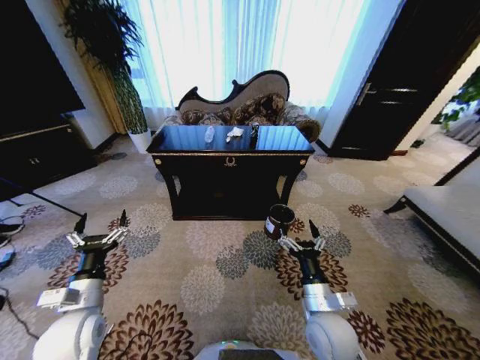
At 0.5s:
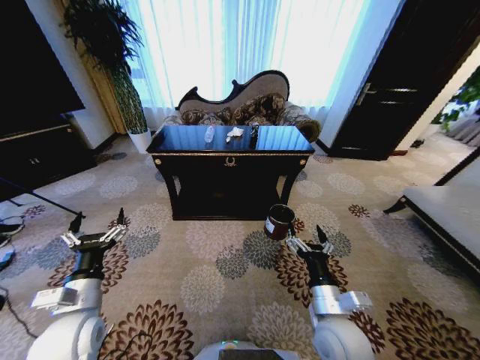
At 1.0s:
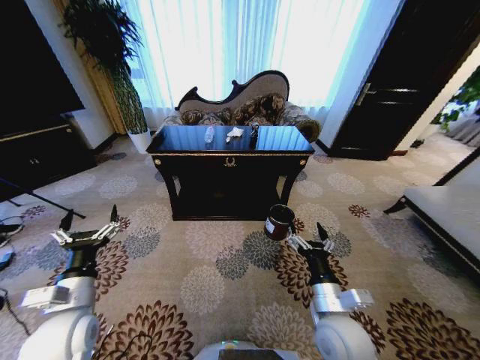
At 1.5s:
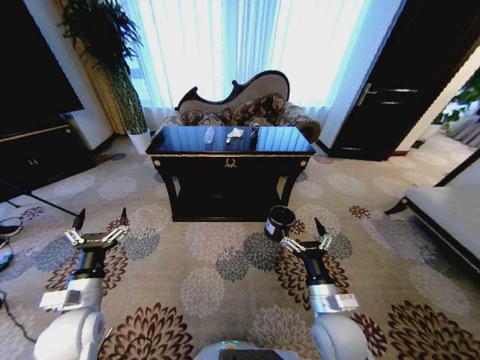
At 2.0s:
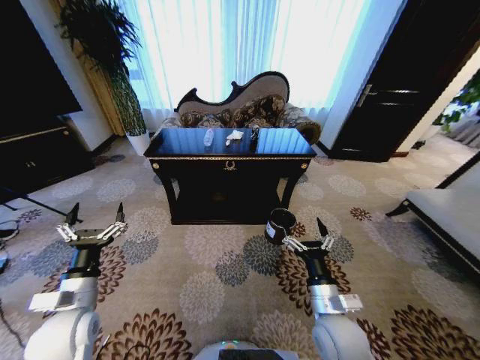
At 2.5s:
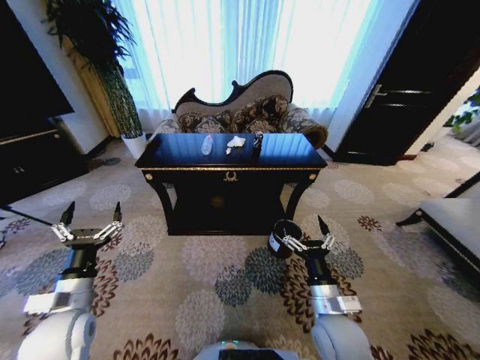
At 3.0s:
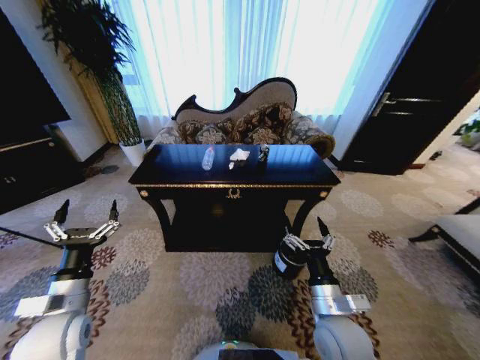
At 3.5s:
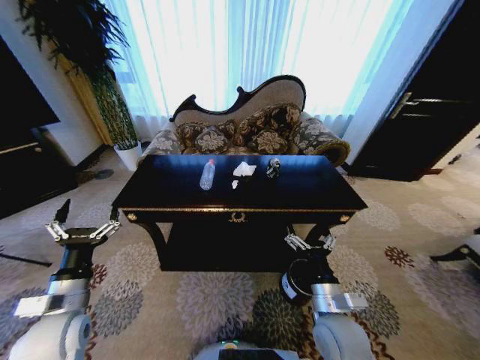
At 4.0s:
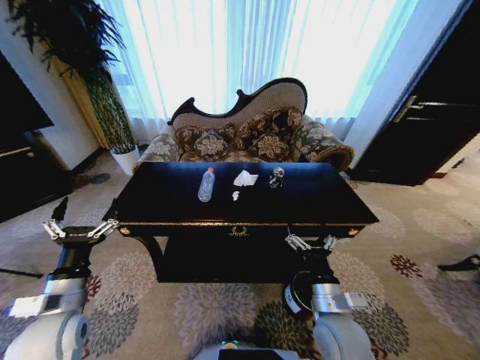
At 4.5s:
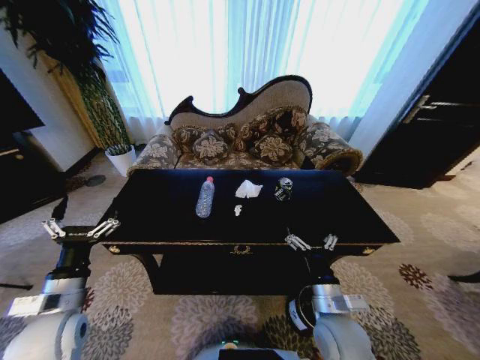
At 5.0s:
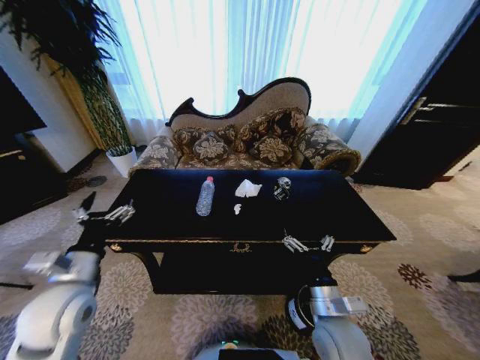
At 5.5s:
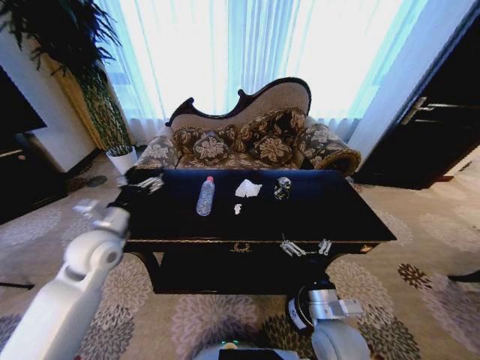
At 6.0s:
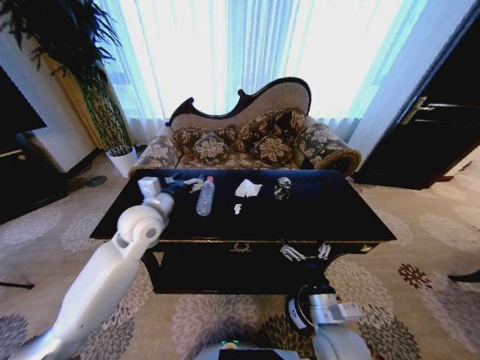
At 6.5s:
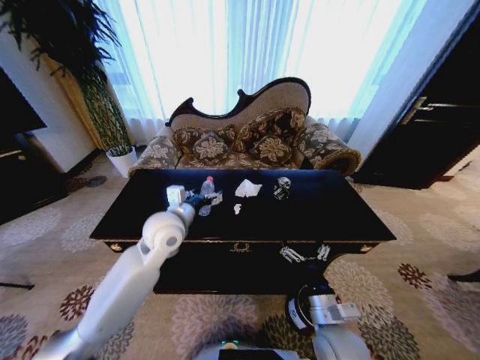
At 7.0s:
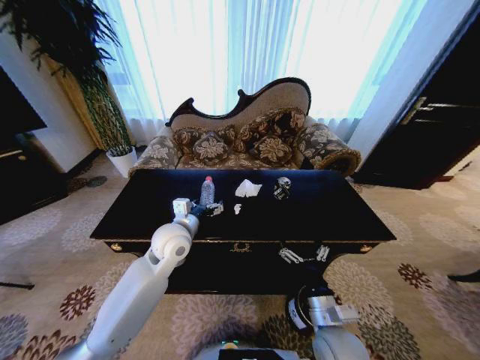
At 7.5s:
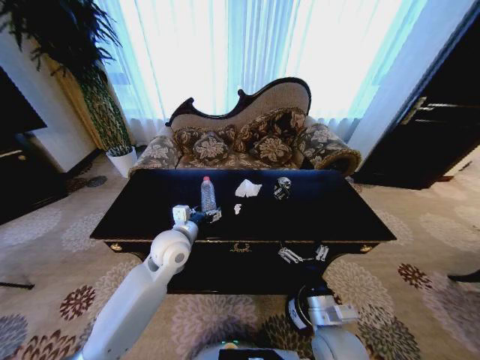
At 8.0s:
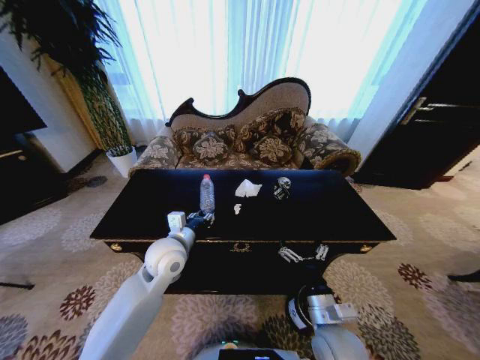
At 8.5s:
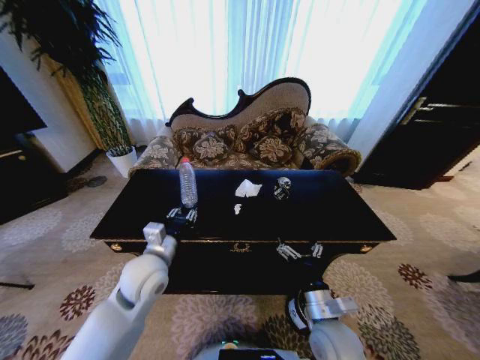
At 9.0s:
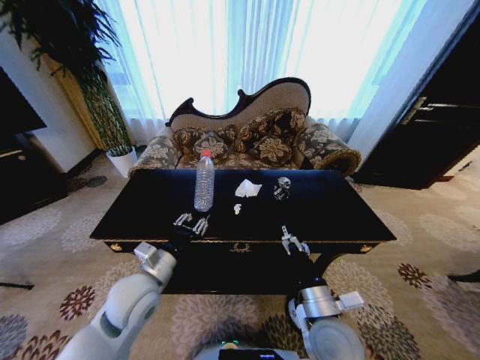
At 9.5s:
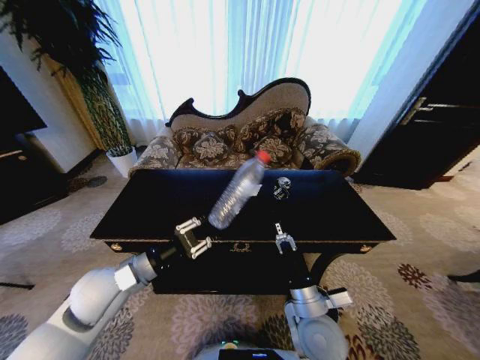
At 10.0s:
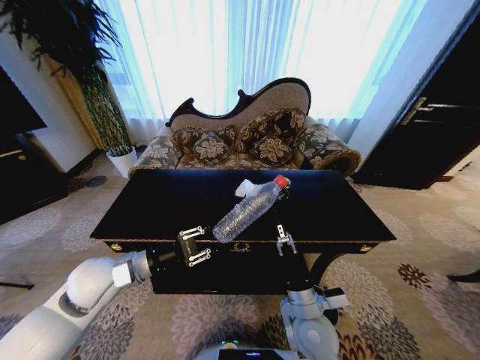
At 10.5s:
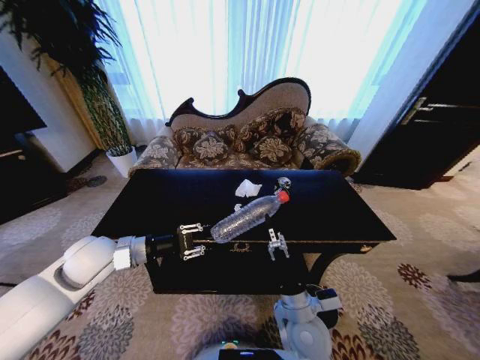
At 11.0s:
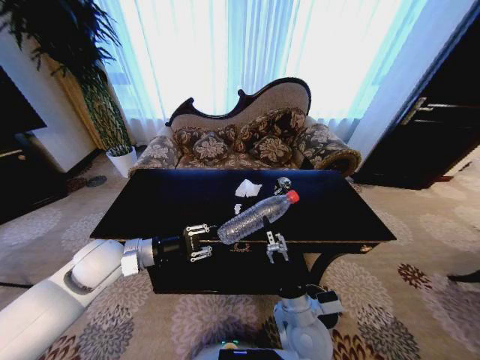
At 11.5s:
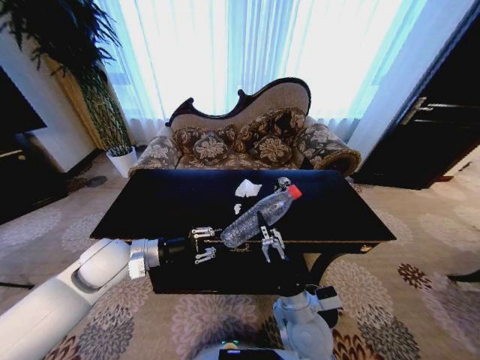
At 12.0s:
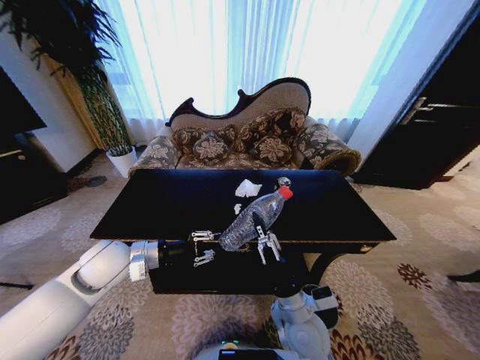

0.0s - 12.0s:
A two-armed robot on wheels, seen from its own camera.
Task of the whole recording: Move to the front of the table and place the trash on the table into the trash bin.
4.0s - 6.0s: The left gripper goes approximately 25 cm forward, to the right and upward.
6.0s - 8.0s: The left gripper heads downward and to the right, covering roughly 10 cm, and closes its fingers.
8.0s - 10.0s: The right gripper shifts by roughly 5 cm. The left gripper heads to the left and backward, covering roughly 15 cm.
10.0s - 12.0s: The right gripper closes.

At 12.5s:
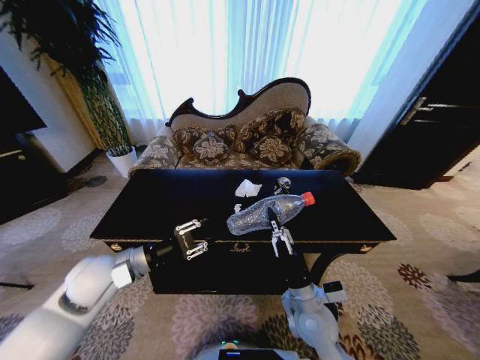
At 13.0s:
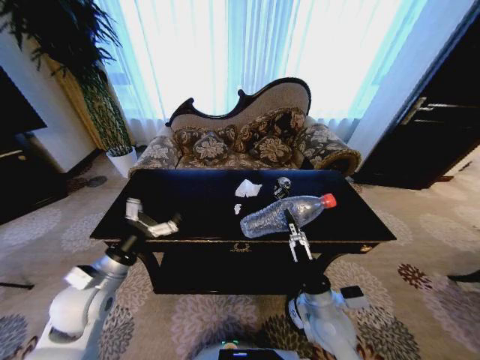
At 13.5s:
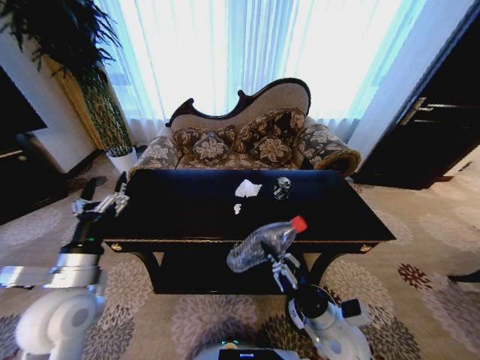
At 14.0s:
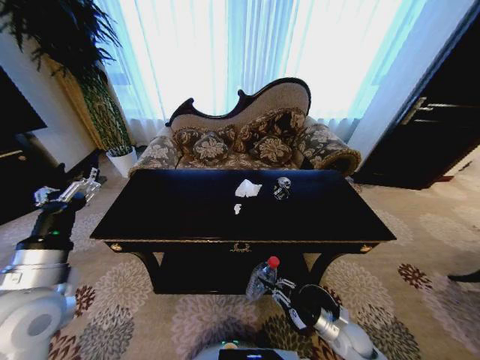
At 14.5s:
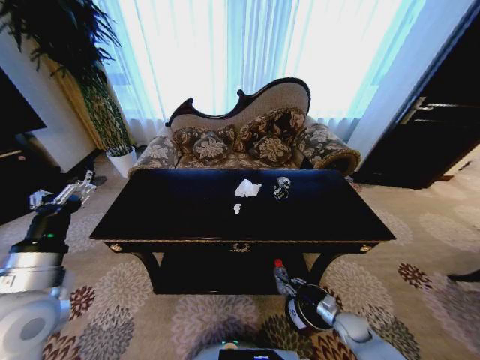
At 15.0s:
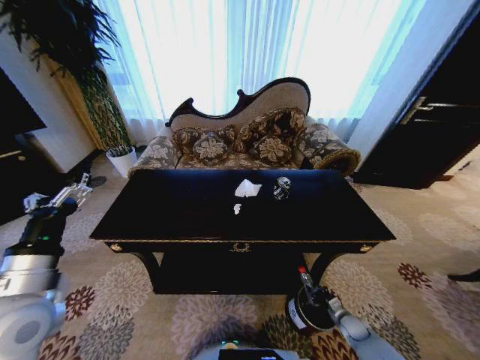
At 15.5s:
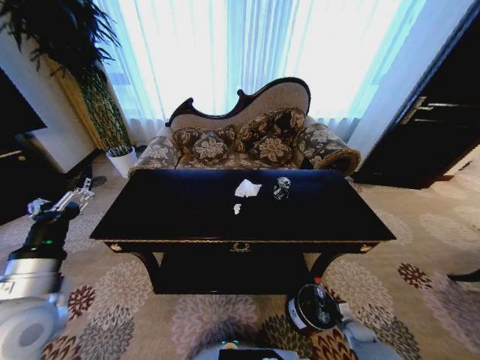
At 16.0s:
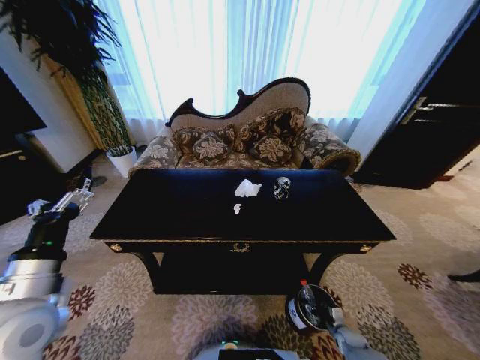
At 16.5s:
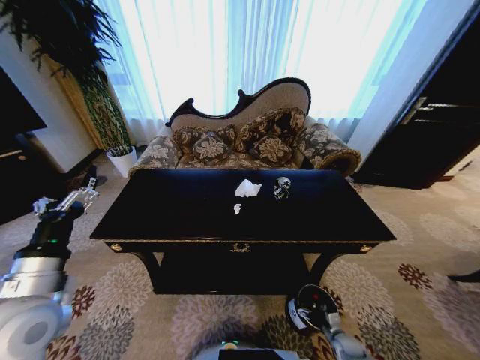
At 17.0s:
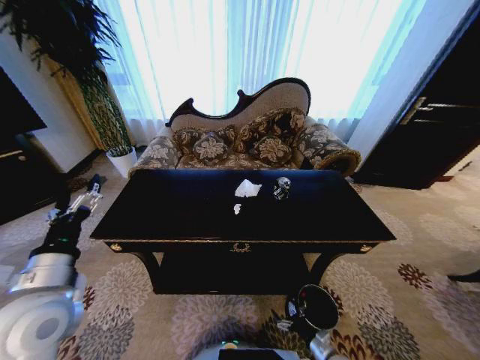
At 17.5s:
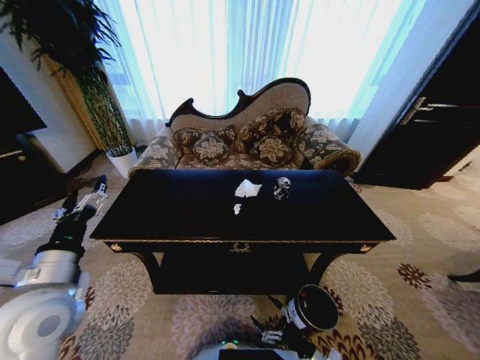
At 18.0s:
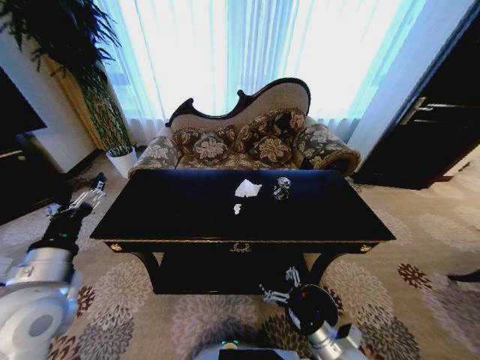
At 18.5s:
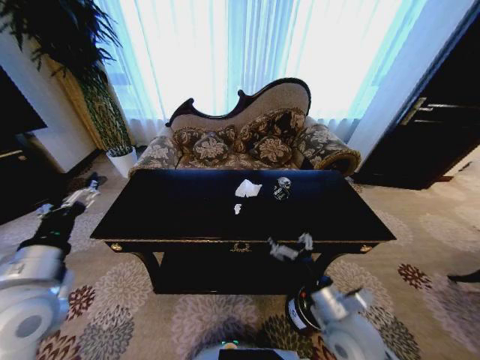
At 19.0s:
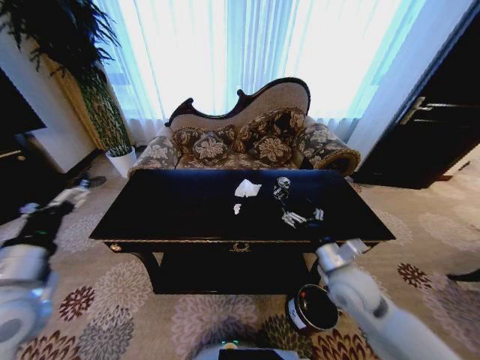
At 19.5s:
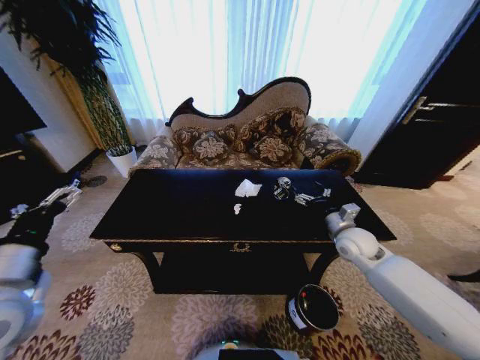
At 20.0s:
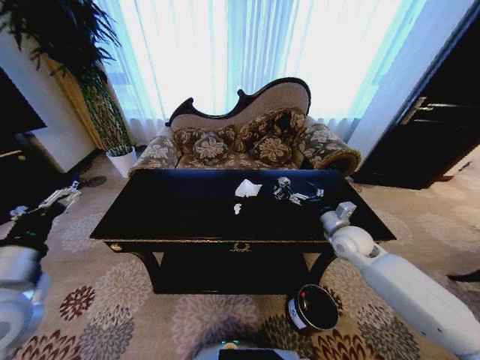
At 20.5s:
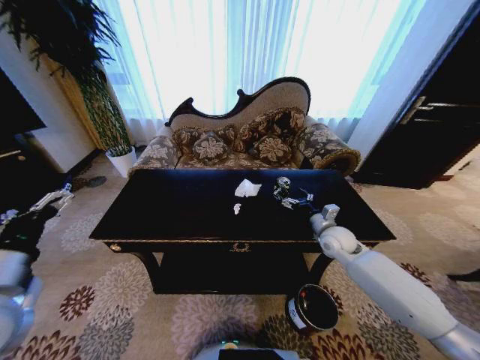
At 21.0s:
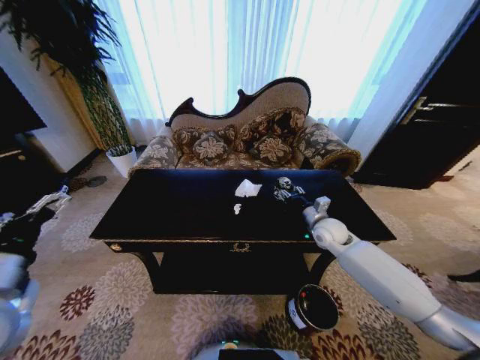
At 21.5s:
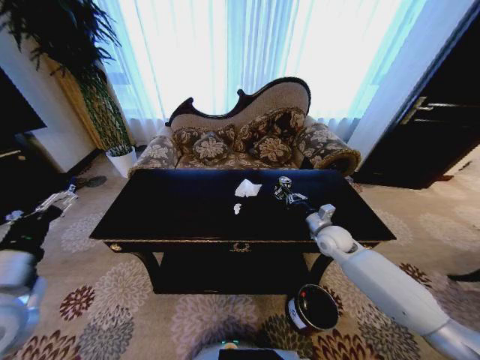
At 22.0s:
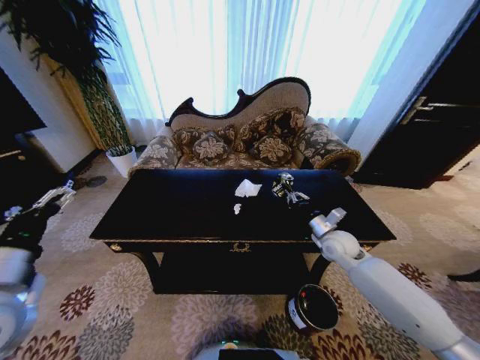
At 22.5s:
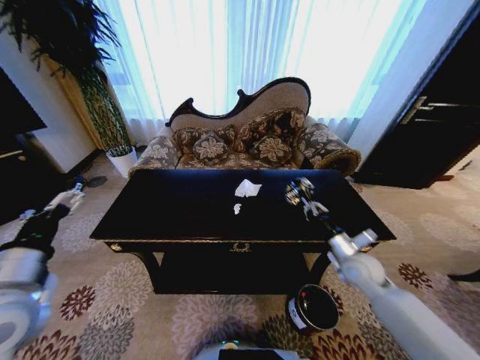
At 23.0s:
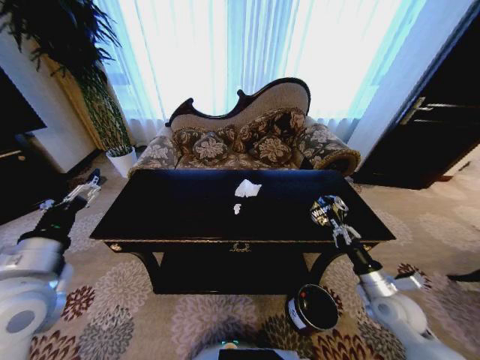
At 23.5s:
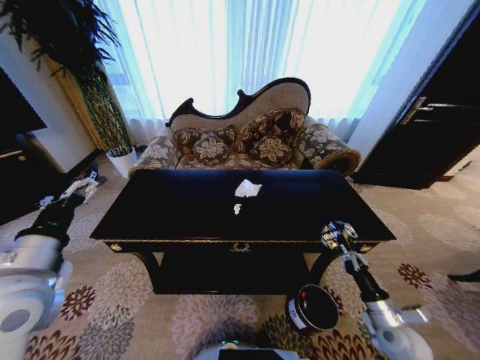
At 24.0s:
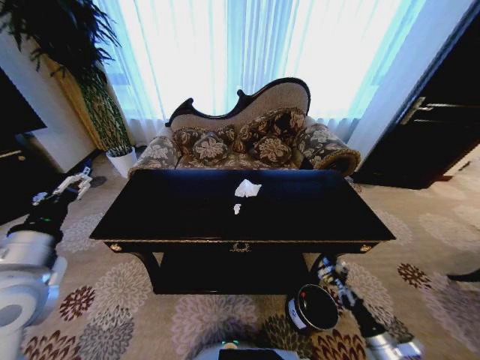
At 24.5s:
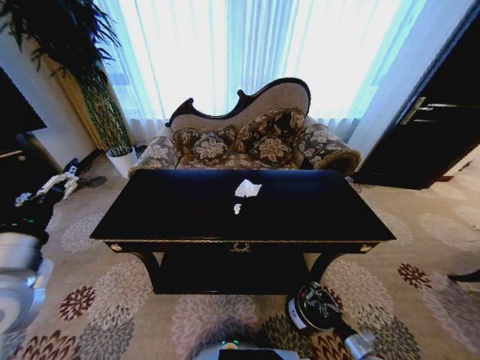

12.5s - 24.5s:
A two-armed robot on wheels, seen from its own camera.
Task of the whole recording: Move to the front of the table and place the trash on the table into the trash bin.
12.5s - 14.5s: The left gripper is displaced backward and upward by approximately 10 cm, and opens. The right gripper shifts about 30 cm to the right and downward.
14.5s - 16.5s: The right gripper moves downward, approximately 10 cm, and opens its fingers.
16.5s - 18.5s: The right gripper goes some 40 cm upward and to the left.
18.5s - 20.5s: The right gripper travels forward by approximately 25 cm.
20.5s - 22.5s: The right gripper heads backward, covering approximately 10 cm, and closes its fingers.
22.5s - 24.5s: The right gripper heads downward and backward, covering approximately 35 cm.

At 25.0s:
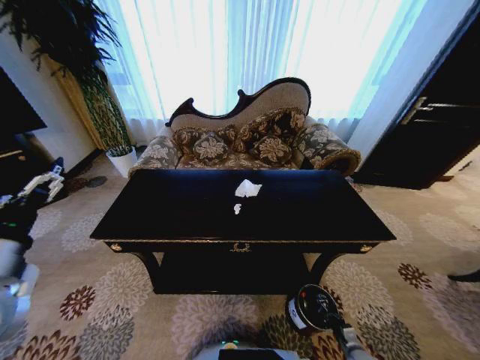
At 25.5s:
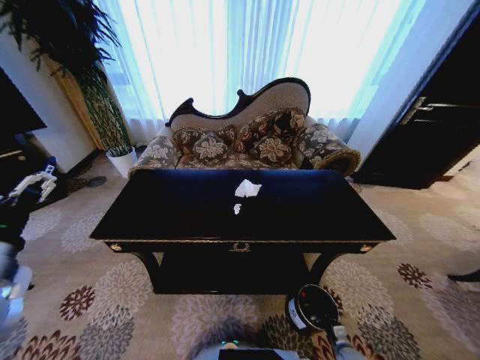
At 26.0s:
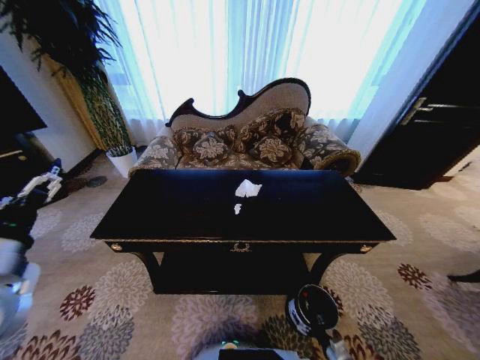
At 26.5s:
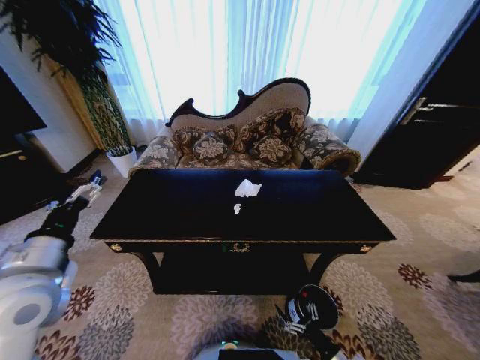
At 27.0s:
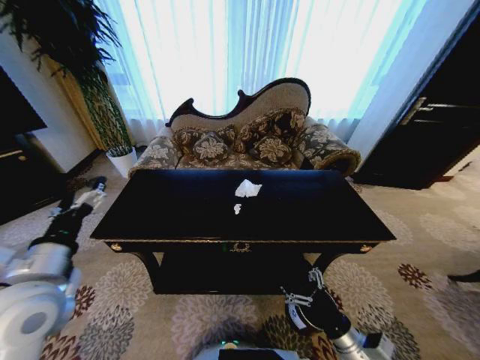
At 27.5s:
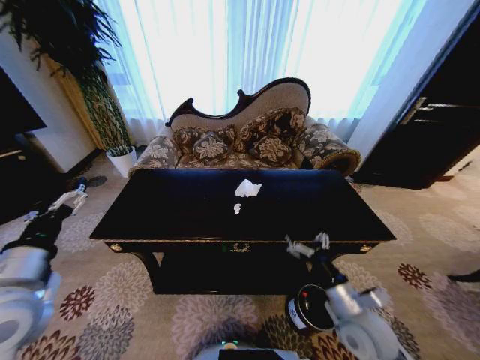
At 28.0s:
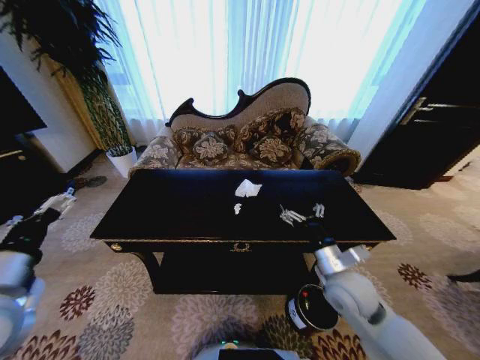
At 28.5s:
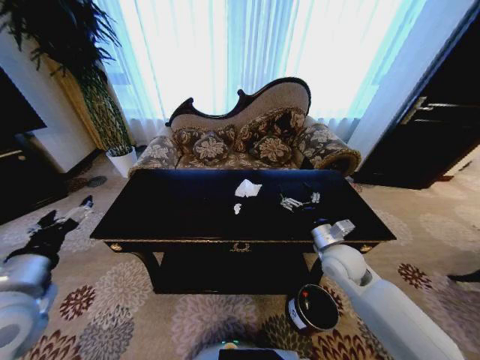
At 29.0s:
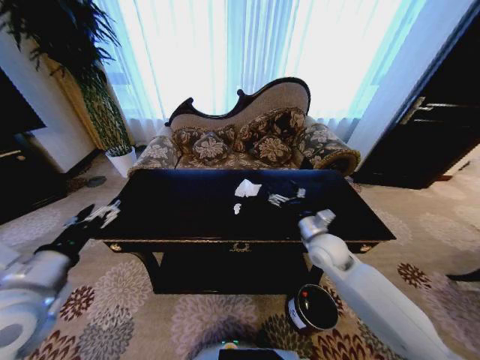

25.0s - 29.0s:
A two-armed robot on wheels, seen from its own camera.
Task of the whole recording: Move to the front of the table and place the trash on the table into the trash bin.
25.0s - 27.0s: The right gripper goes approximately 30 cm upward and to the left, and opens up, while the left gripper shifts by roughly 5 cm.
27.0s - 29.0s: The right gripper shifts roughly 25 cm forward and upward.
